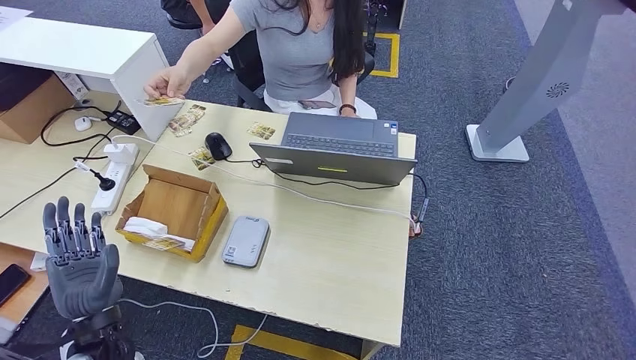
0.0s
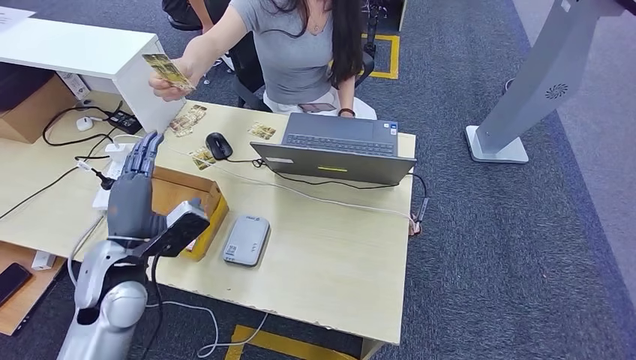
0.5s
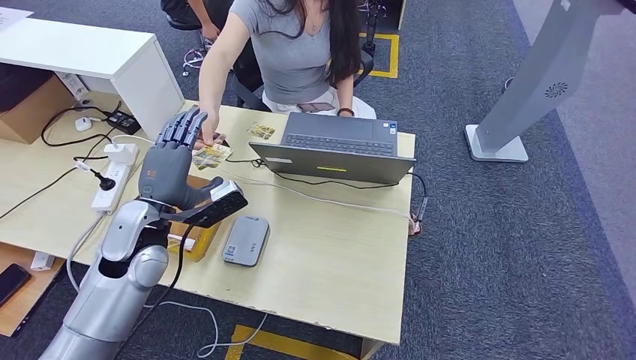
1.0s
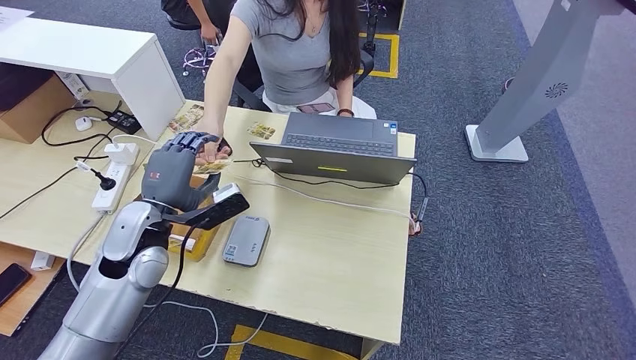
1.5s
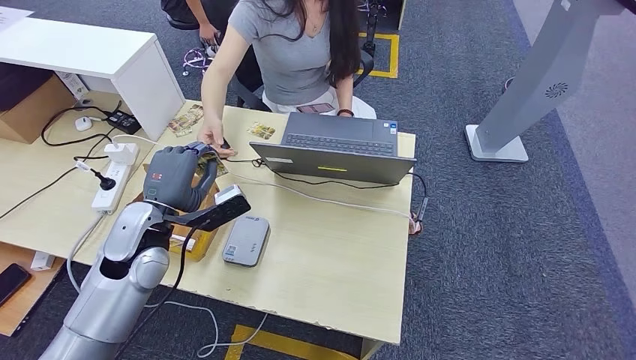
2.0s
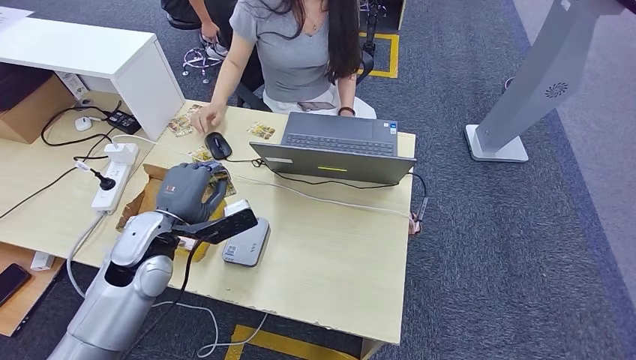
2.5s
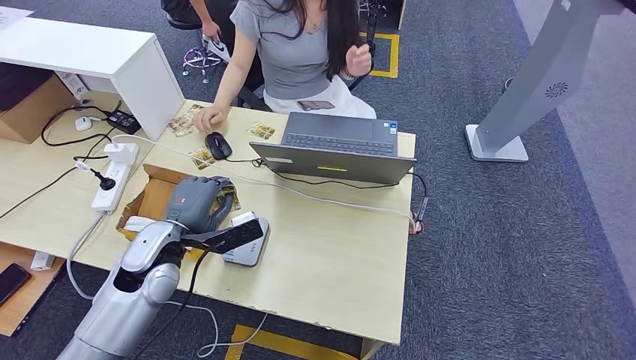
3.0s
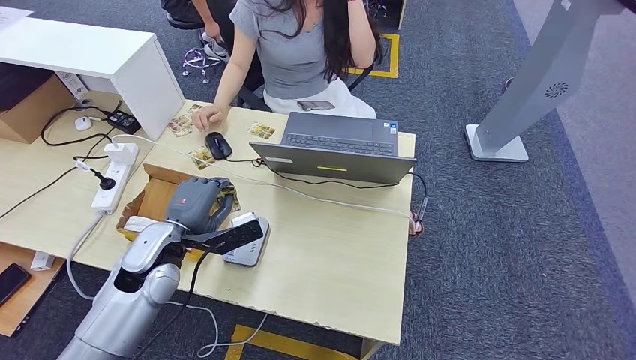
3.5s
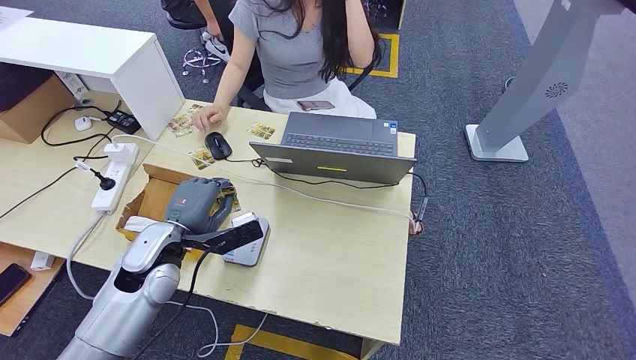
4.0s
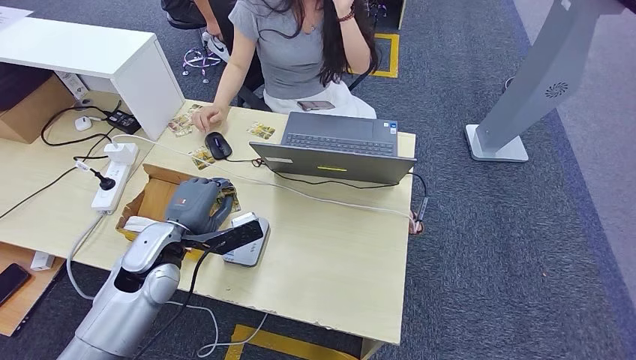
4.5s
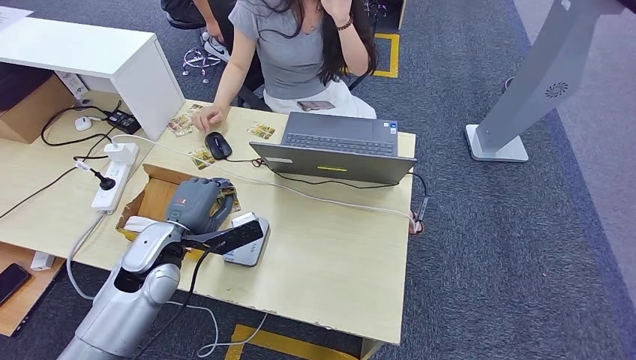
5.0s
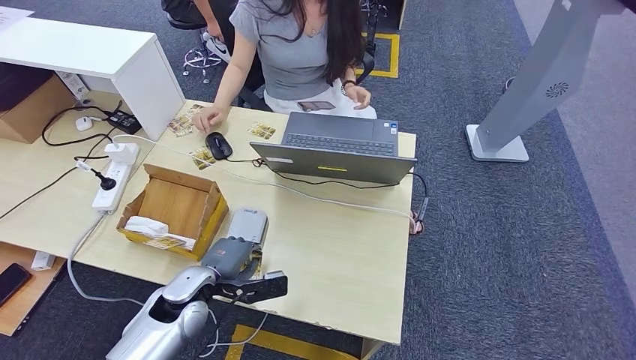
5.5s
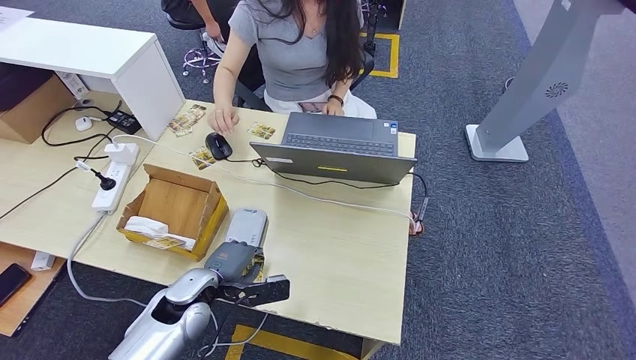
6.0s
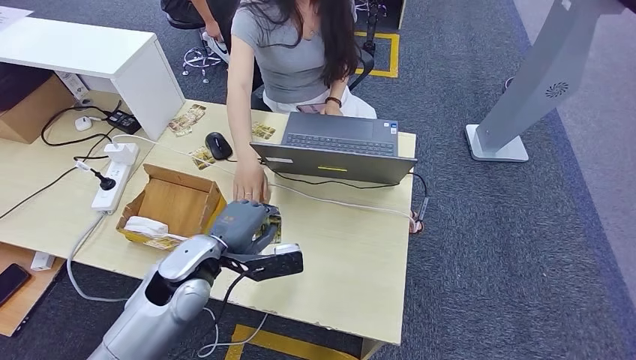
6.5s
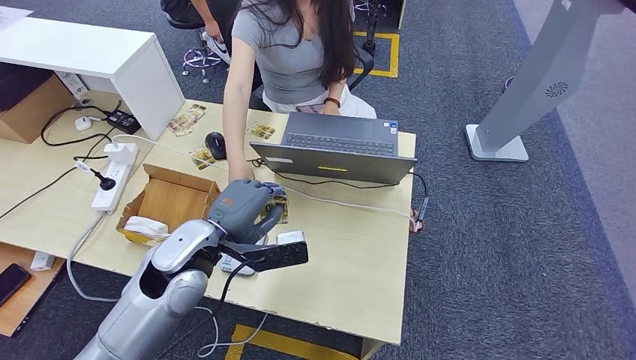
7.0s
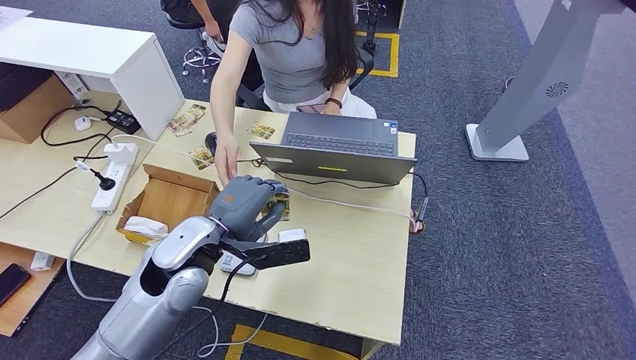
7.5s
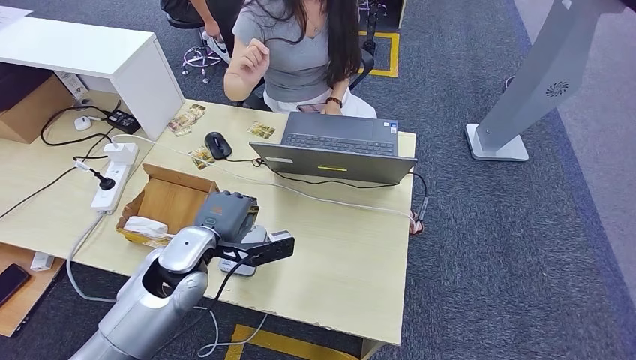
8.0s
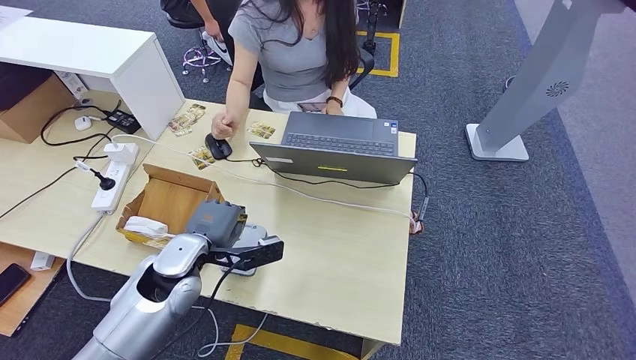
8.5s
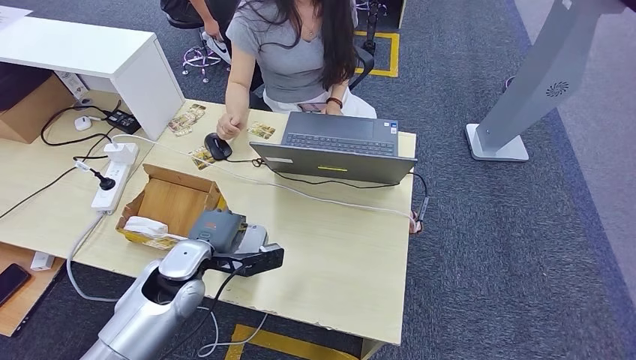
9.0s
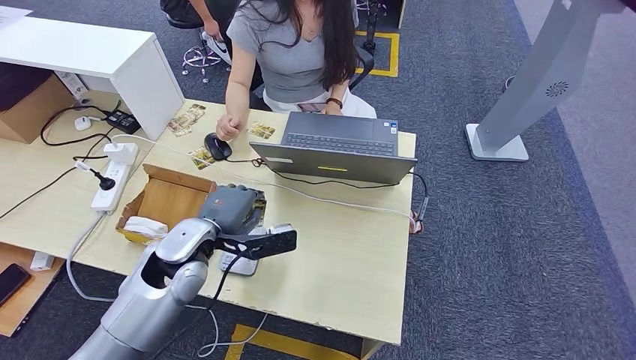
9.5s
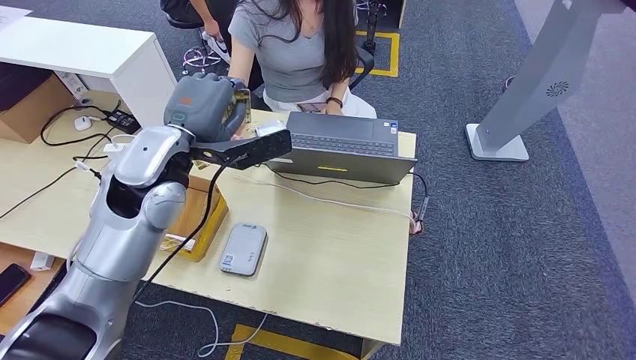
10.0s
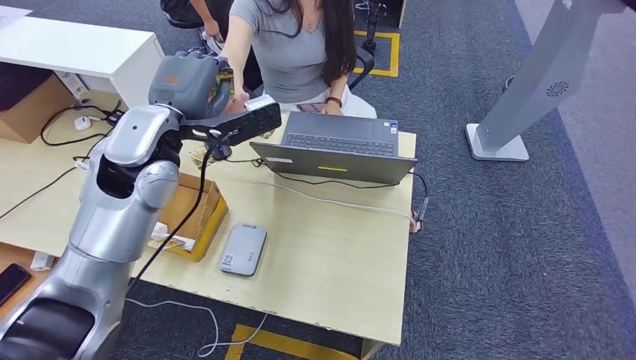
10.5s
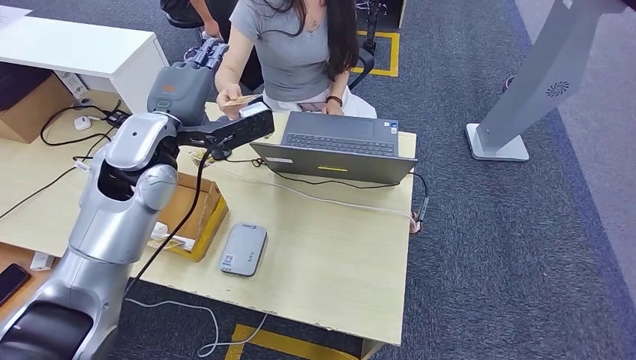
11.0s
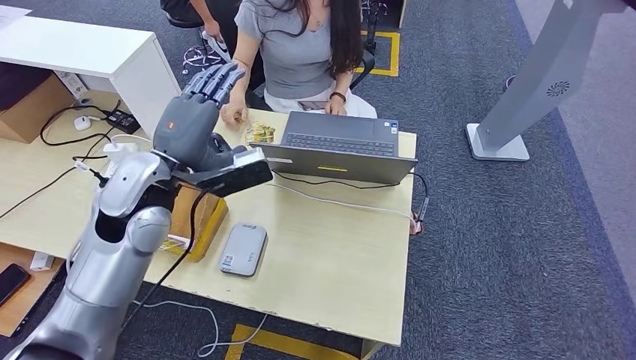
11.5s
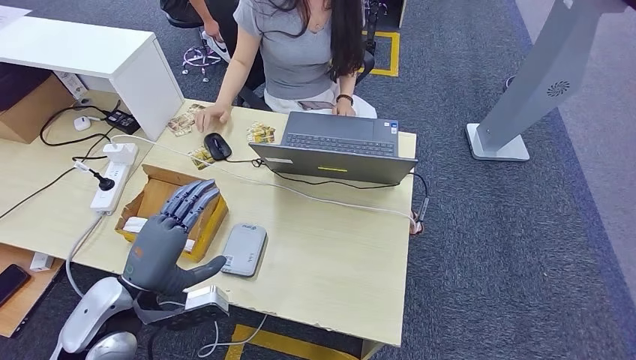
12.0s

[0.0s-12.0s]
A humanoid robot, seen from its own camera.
Step, 0.0s to 3.0s: Take the ID card from the person's hand.
Step, 3.5s to 8.5s: Place the ID card on the card reader.
0.0s to 2.0s: The left hand moves forward and upward, about 20 cm.
2.0s to 4.0s: The hands make only small movements.
4.0s to 6.0s: The left hand is displaced downward by approximately 10 cm.
6.0s to 8.0s: The left hand heads upward, covering about 10 cm.
8.0s to 10.0s: The left hand heads upward, covering some 15 cm.
10.0s to 12.0s: The left hand shifts roughly 25 cm backward, downward and to the left.

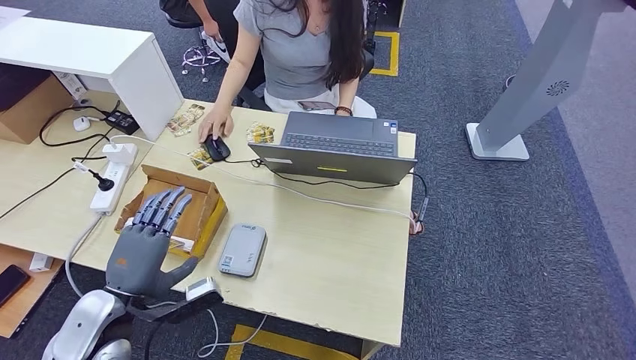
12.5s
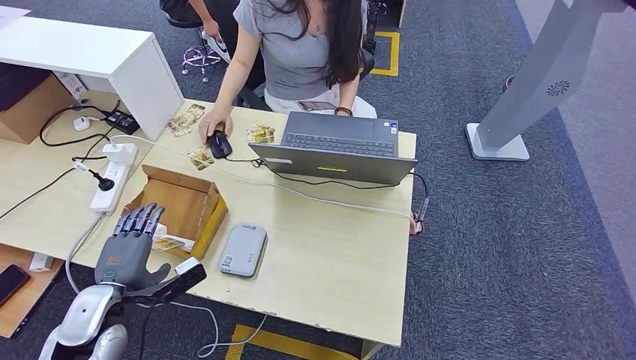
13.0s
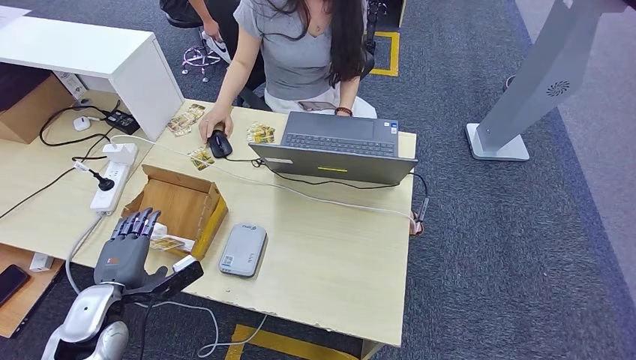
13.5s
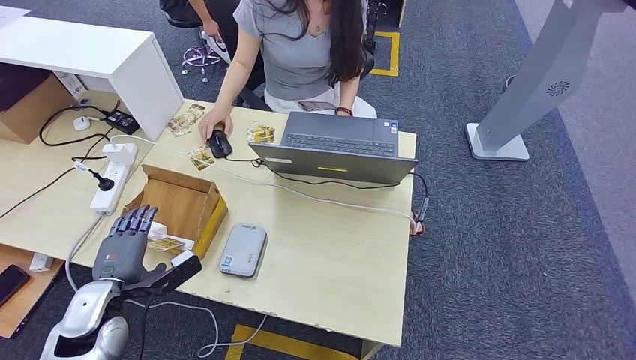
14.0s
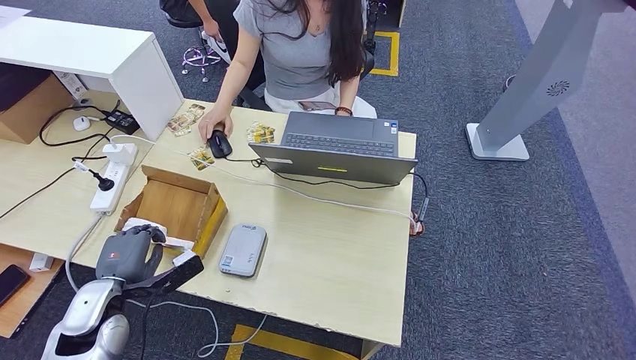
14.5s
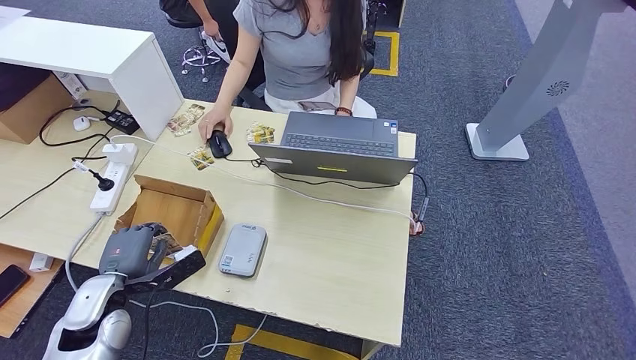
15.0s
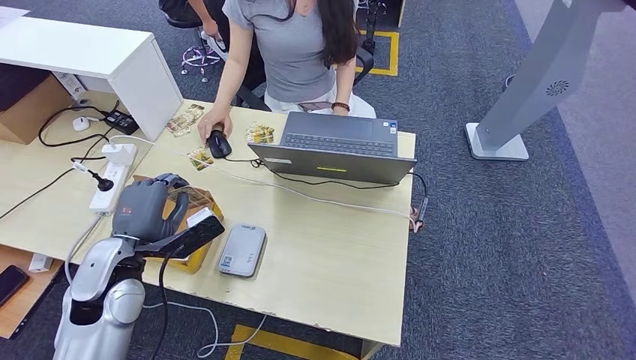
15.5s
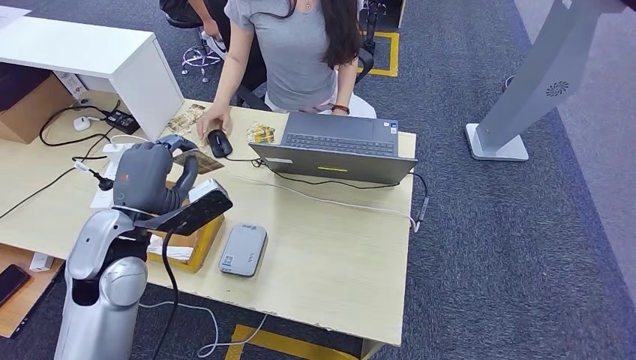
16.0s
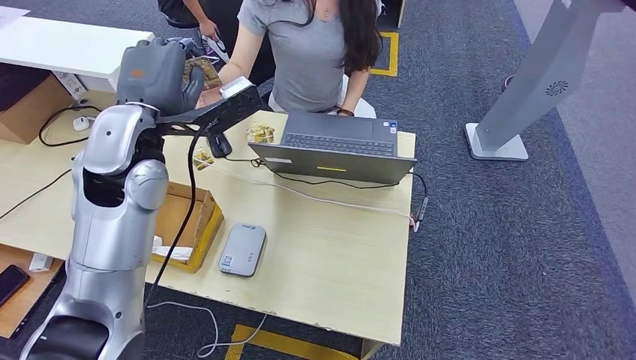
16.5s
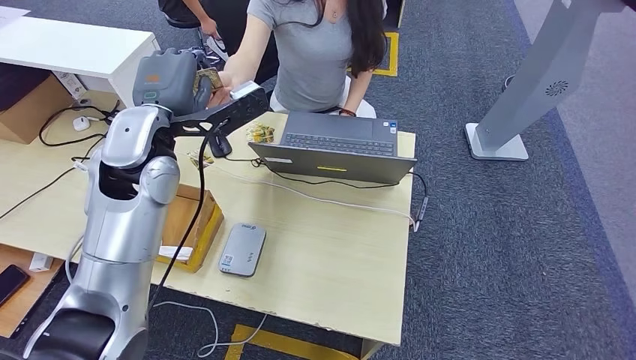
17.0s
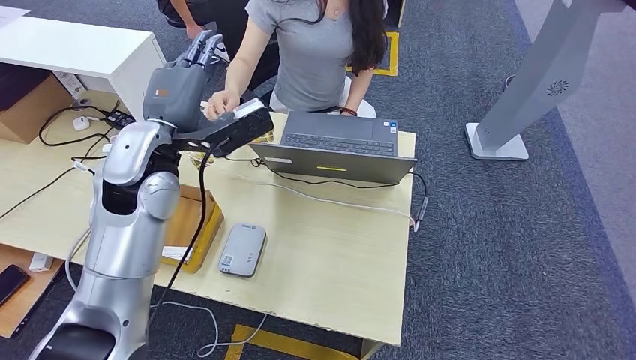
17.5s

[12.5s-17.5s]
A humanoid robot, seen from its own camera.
Step, 12.5s to 16.0s: Pick up the room key from the key card box.
Step, 16.5s to 17.5s: Hand the room key to the person.
12.5s to 15.0s: The left hand is displaced downward by about 5 cm.
15.0s to 17.5s: The left hand travels upward, forward and to the right by about 30 cm. The right hand moves about 5 cm.
